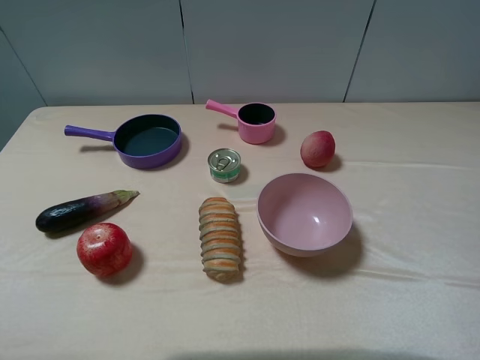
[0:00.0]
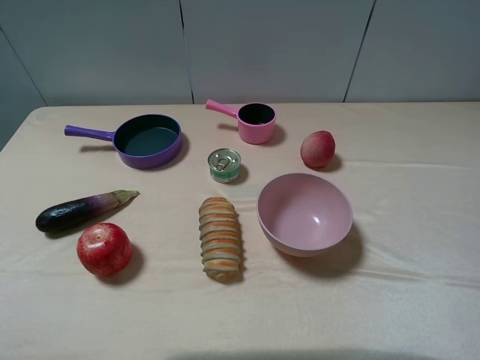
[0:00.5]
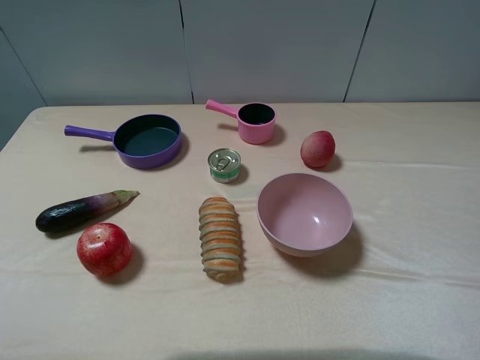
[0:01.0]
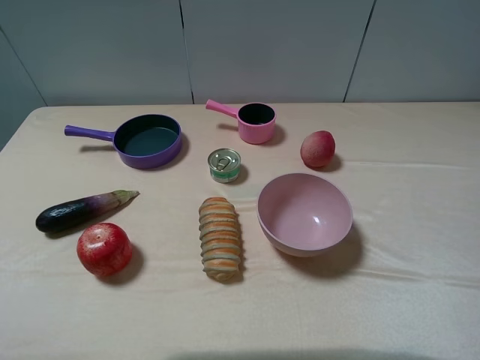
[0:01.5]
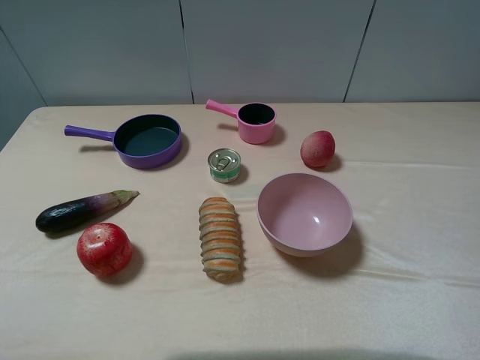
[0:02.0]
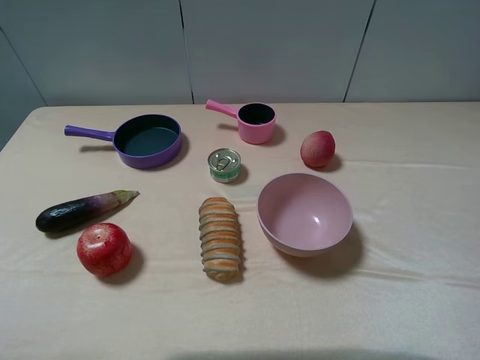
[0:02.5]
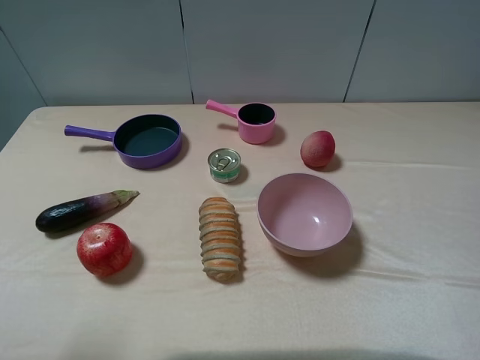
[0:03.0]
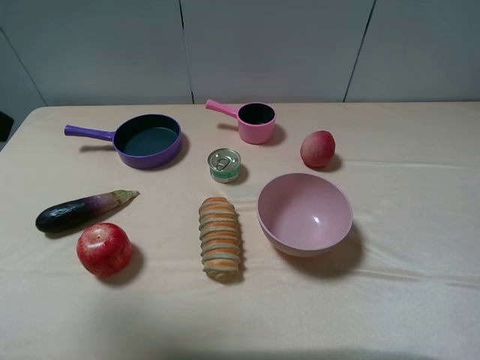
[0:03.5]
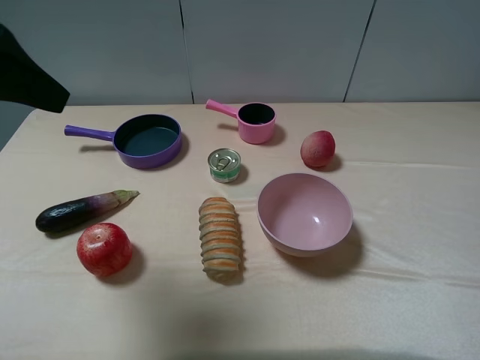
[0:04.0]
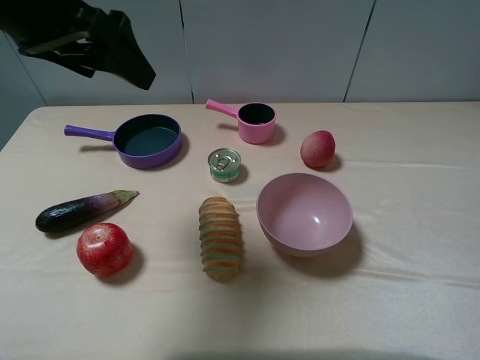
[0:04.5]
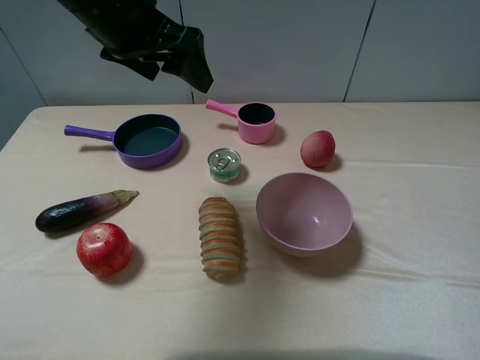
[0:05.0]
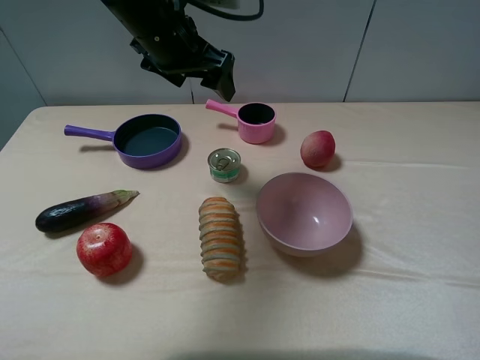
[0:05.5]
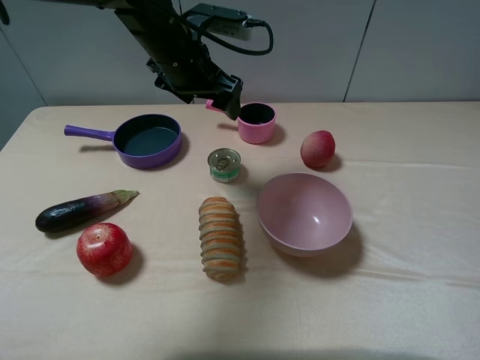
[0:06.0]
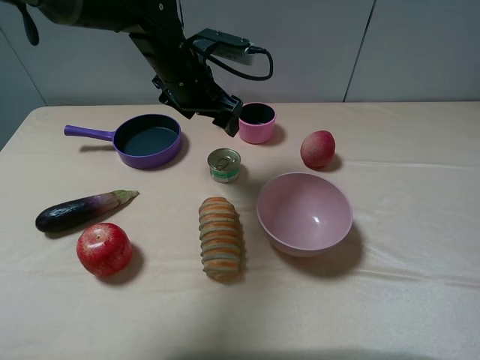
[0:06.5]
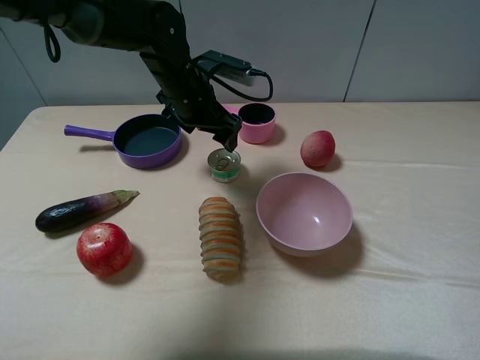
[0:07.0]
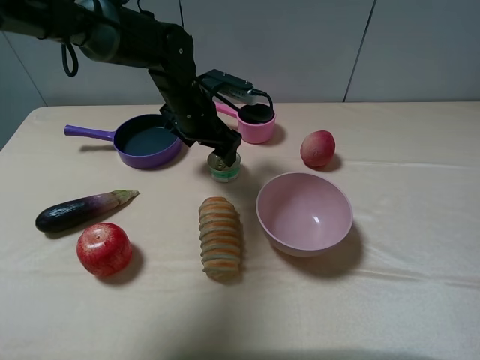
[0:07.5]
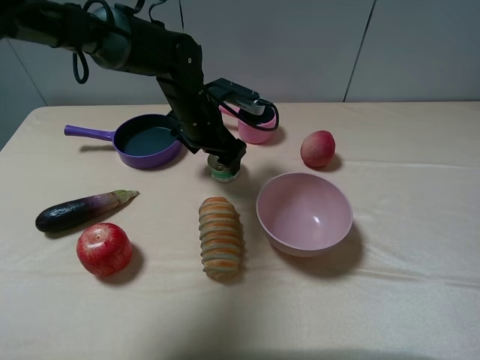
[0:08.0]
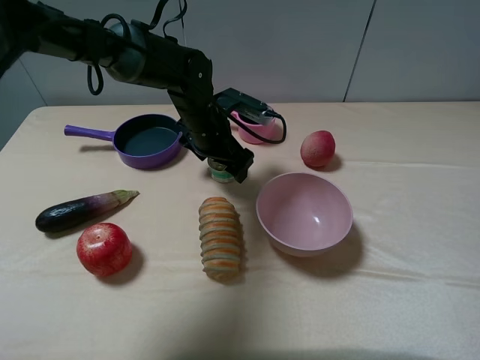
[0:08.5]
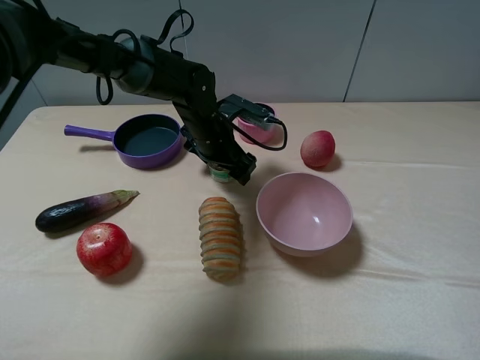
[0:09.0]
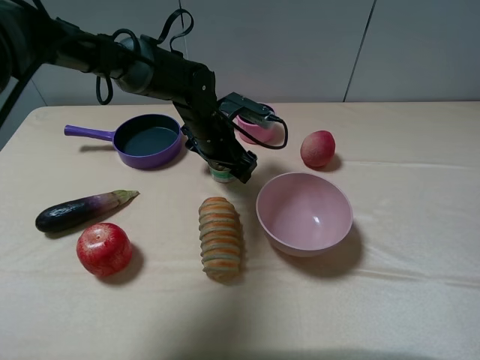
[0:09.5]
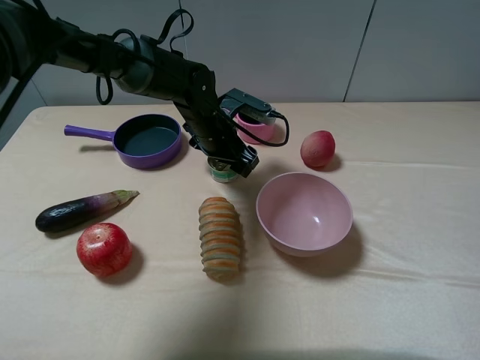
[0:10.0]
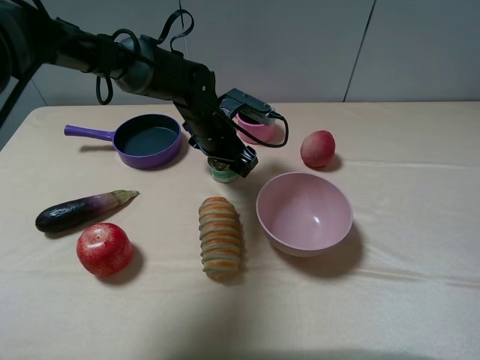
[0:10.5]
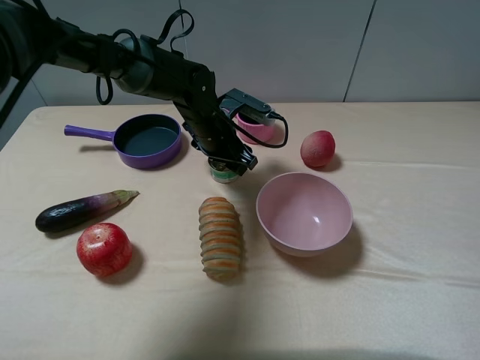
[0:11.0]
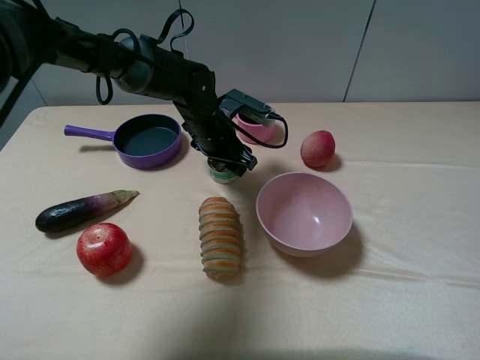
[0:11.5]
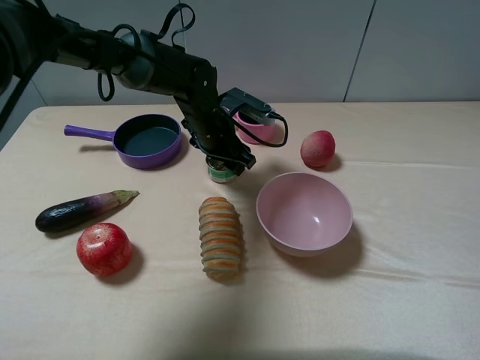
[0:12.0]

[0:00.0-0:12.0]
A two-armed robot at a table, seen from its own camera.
Task of the whole recording: pick up an item with a gripper and place it in a random container on the table.
Step, 0:00.0 to 0:11.0: Grasp the tin with the left gripper.
0:00.0 to 0:02.0: Neither gripper changes place.
0:02.0 to 0:04.0: The left gripper goes about 20 cm forward.
0:04.0 to 0:06.0: The left gripper moves forward, to the right and downward, about 30 cm.
0:06.0 to 0:08.0: The left gripper shifts some 10 cm downward.
0:08.0 to 0:10.0: There are only small adjustments of the grippers.
0:10.0 to 0:12.0: The left gripper closes its fingers.

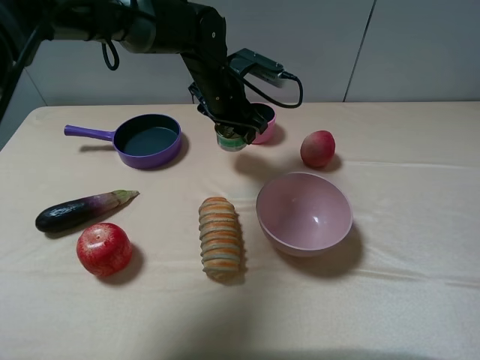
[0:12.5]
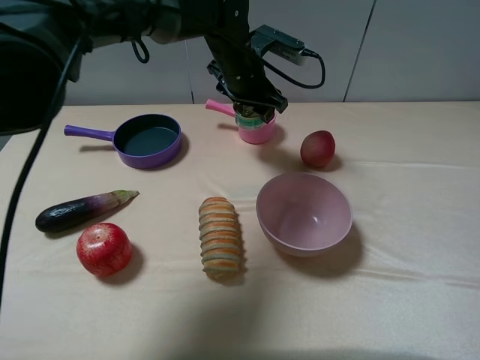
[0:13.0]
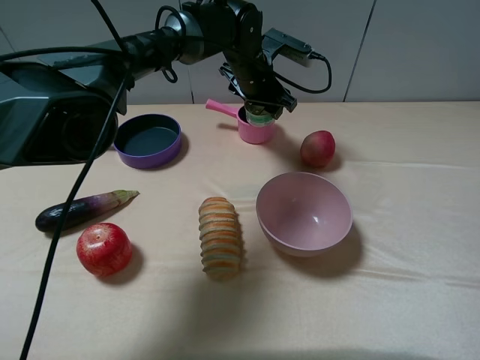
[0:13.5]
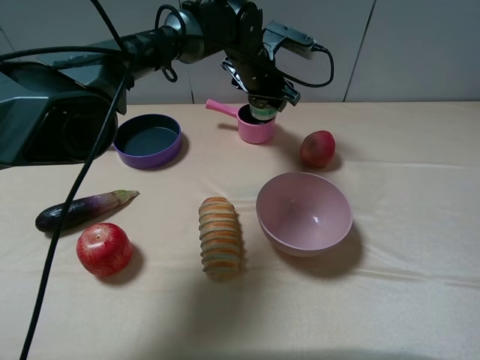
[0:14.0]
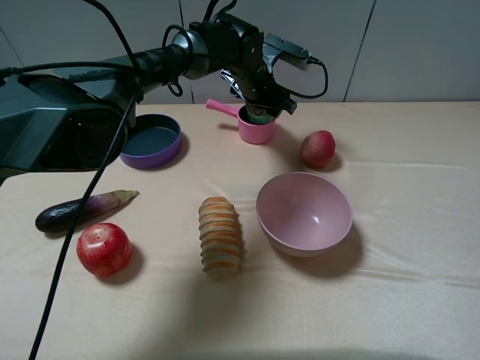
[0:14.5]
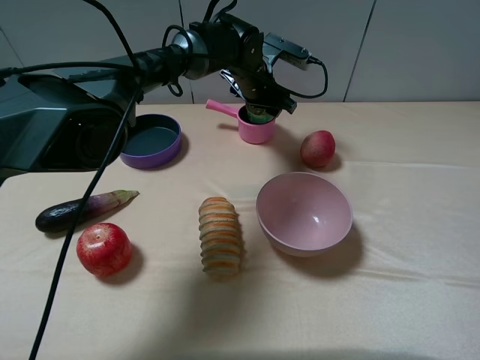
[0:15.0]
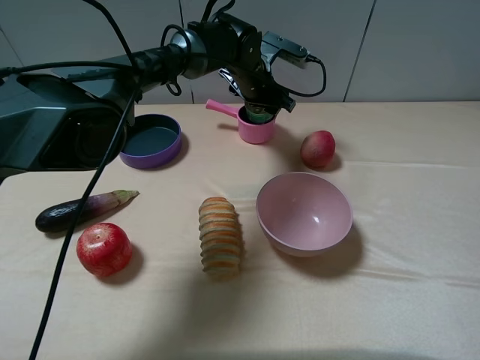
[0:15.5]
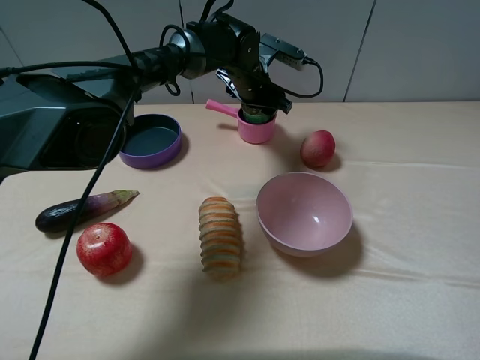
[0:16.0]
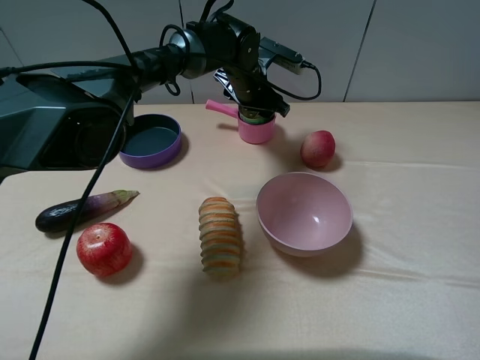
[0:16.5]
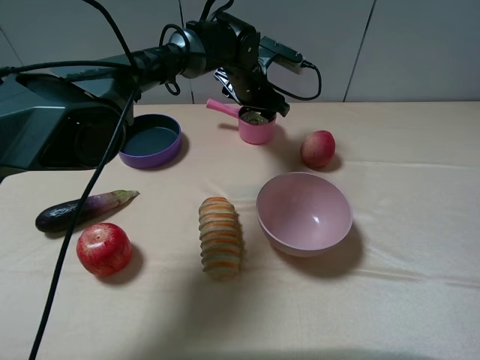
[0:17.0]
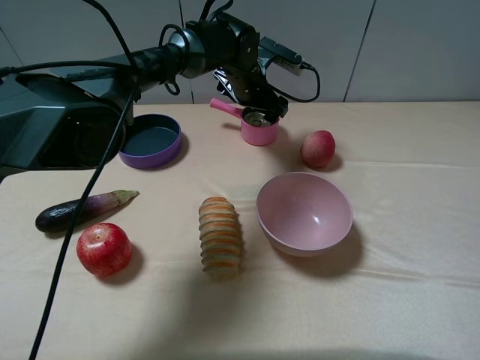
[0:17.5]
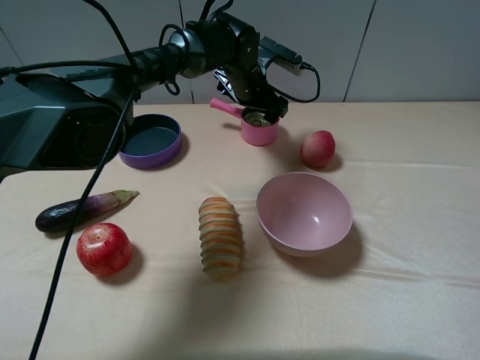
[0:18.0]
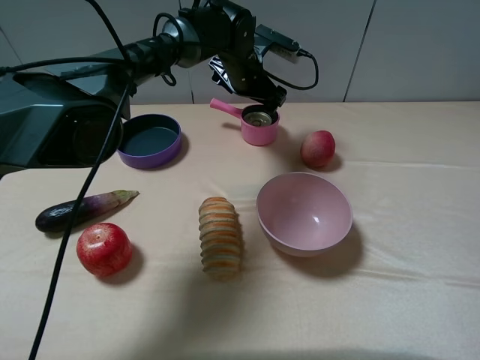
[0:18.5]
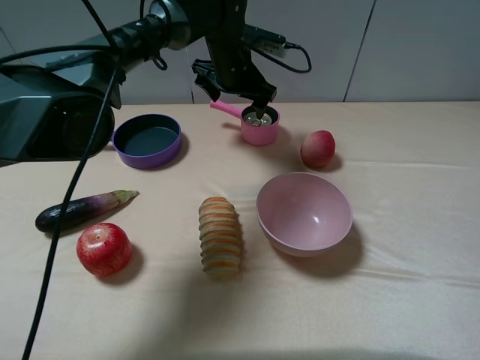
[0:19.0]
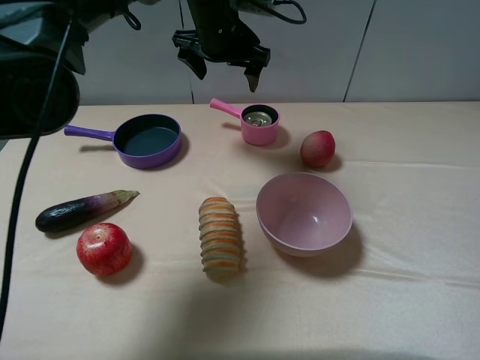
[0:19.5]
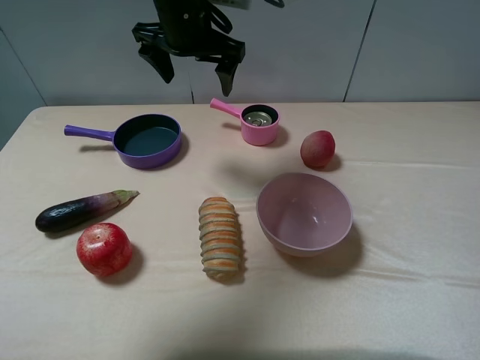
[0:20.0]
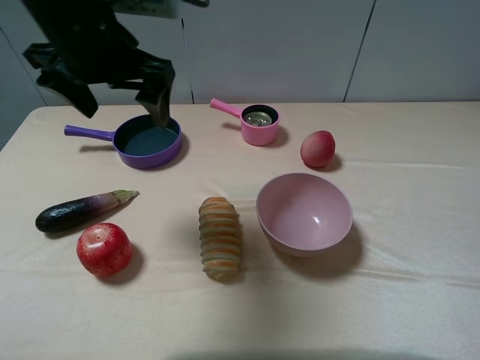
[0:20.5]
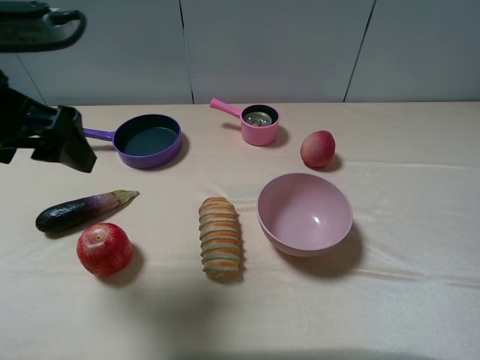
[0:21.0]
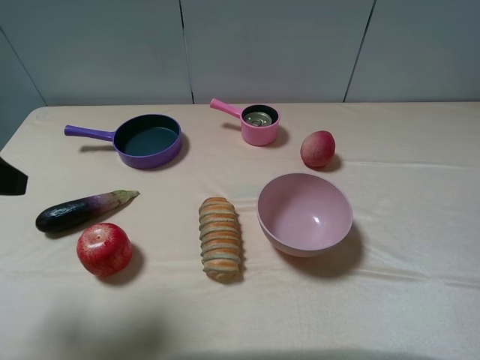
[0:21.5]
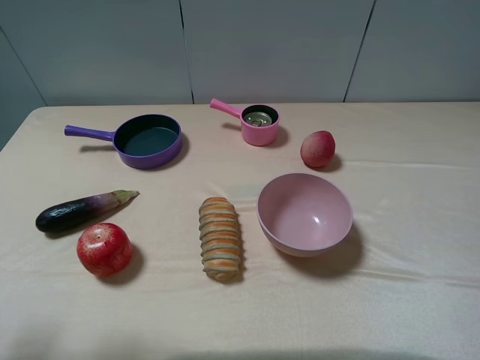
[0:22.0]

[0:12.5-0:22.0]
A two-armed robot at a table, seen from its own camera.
Task of the whole recording: pick up an item with a gripper and place it in a random container on the table.
Step, 0:12.5 to 0:17.0: Place the tin into the pink pot with the left gripper.
0:12.5 to 0:14.5: The left gripper is displaced forward and to the right by roughly 10 cm.
0:14.5 to 0:16.5: The two grippers keep their place.
0:16.5 to 0:18.0: The left gripper opens.
0:18.0 to 0:20.0: The left gripper is displaced upward, to the left and backward by approximately 20 cm.
0:20.0 to 0:22.0: The left gripper moves backward and to the left, about 40 cm.

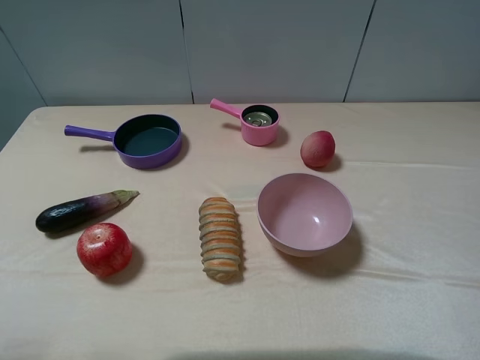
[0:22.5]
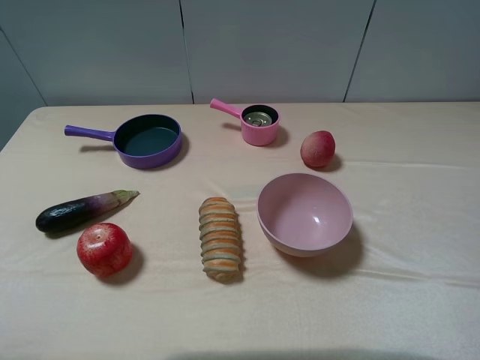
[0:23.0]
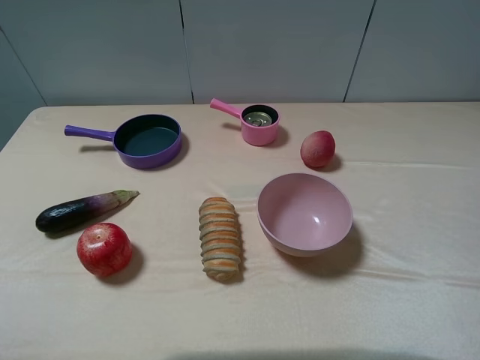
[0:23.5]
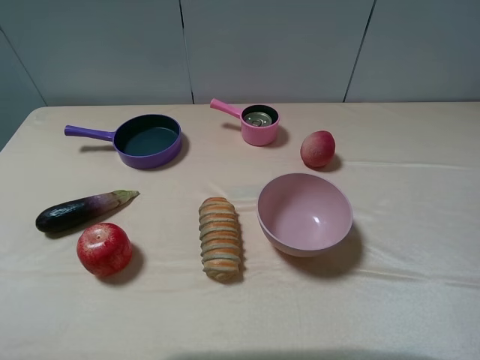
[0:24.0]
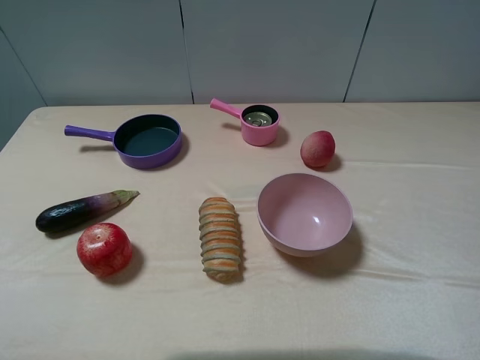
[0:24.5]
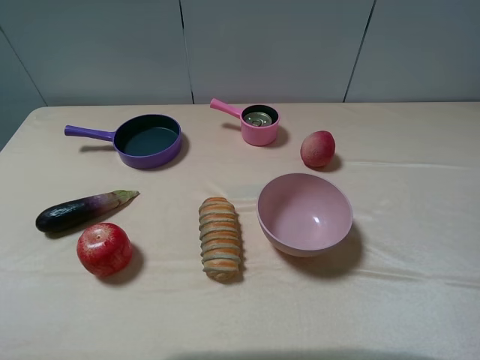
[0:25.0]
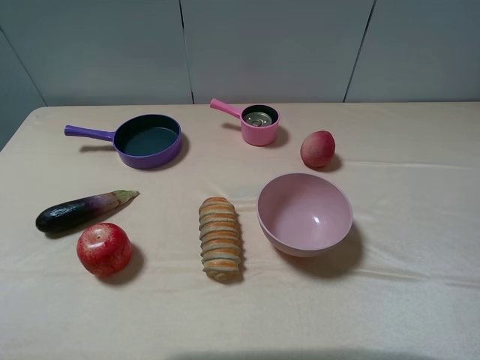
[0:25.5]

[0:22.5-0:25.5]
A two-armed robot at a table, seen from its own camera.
Task of the whole recording: pick up an item with a gripper and place it in a random container on the table.
0:24.0 to 0:25.5: Both grippers stay about where they are.

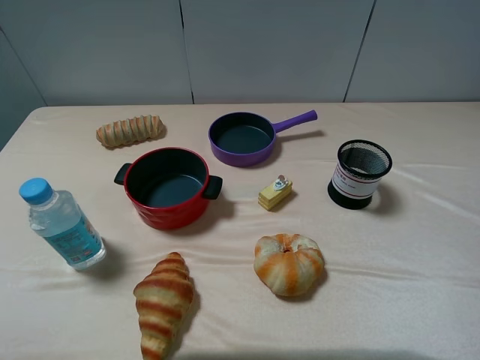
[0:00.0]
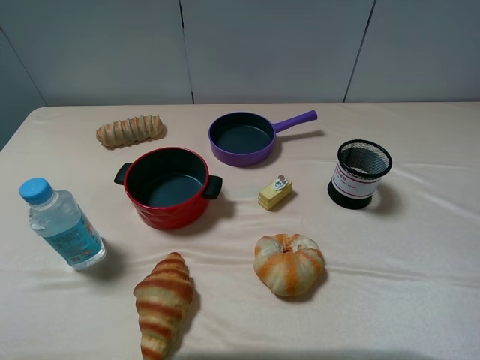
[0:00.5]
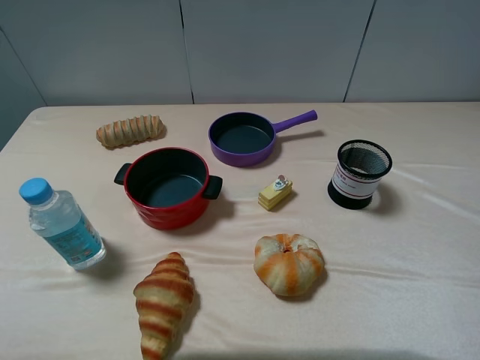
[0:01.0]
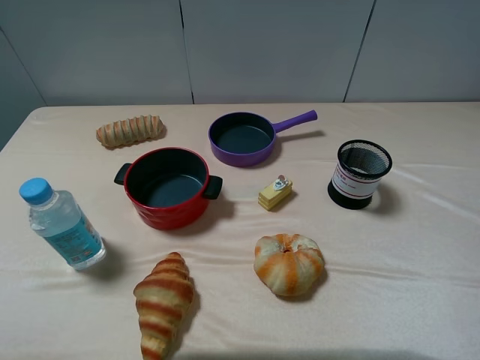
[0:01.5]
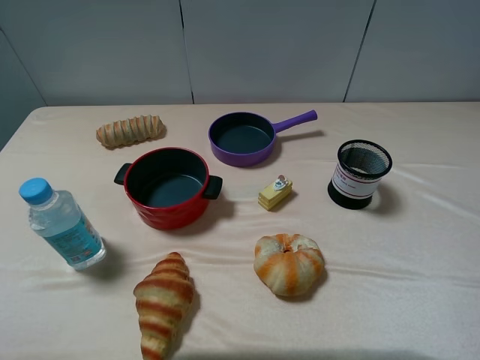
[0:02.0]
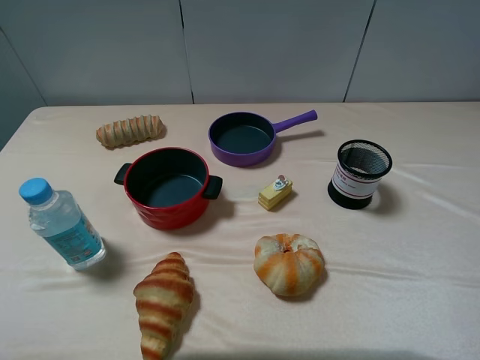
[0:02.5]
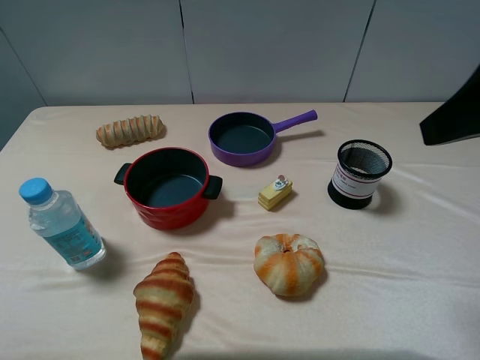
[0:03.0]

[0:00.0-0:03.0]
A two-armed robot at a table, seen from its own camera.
Task of the whole recording: pick up an item with a gripper and place it in a random container on the table.
0:01.5 to 0:03.0: The right gripper moves forward, some 15 cm.
